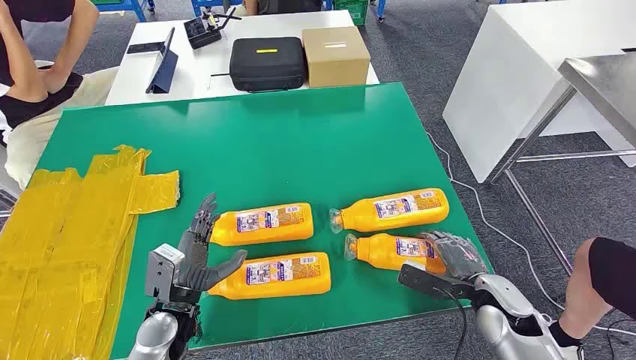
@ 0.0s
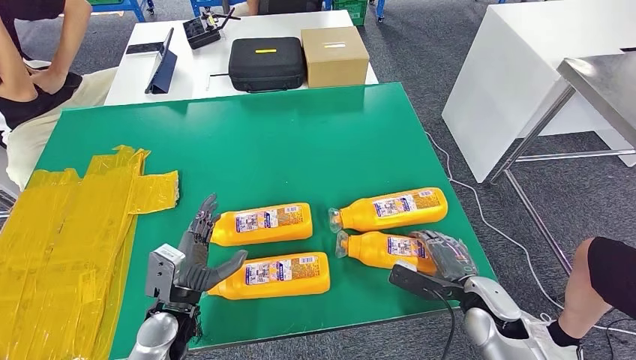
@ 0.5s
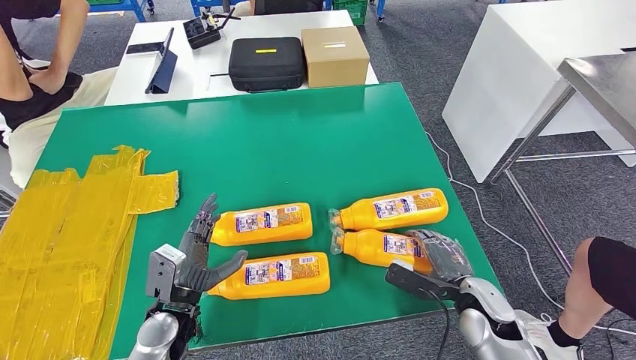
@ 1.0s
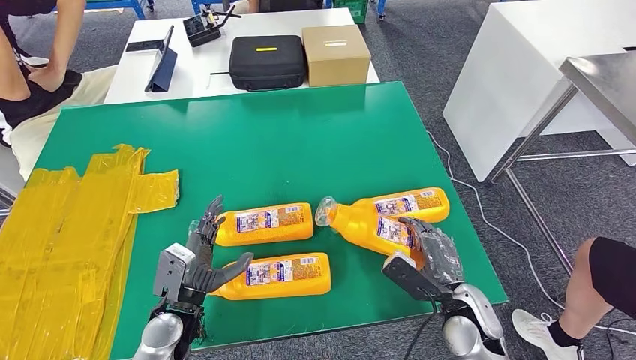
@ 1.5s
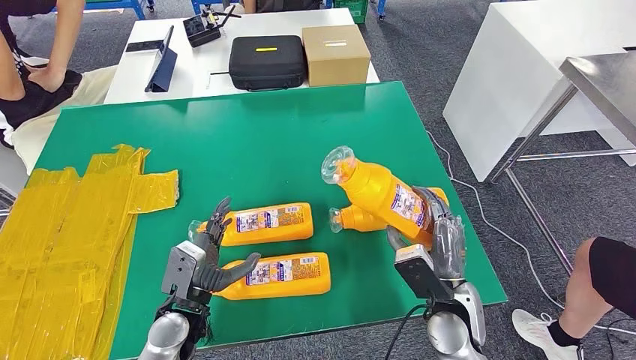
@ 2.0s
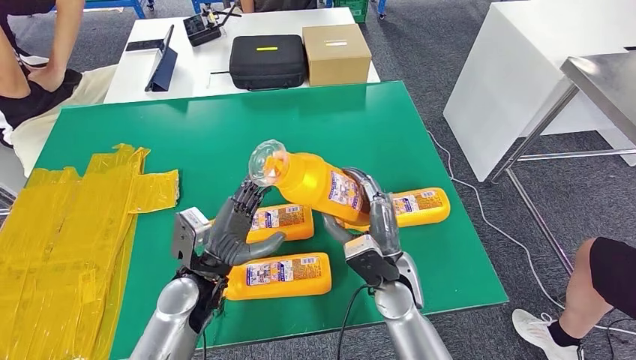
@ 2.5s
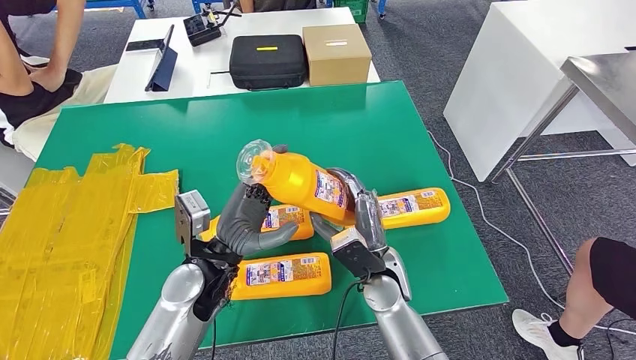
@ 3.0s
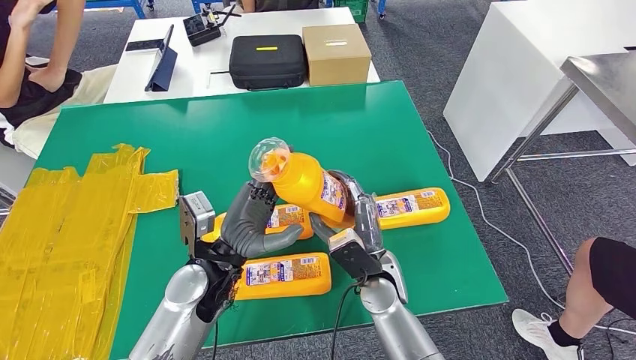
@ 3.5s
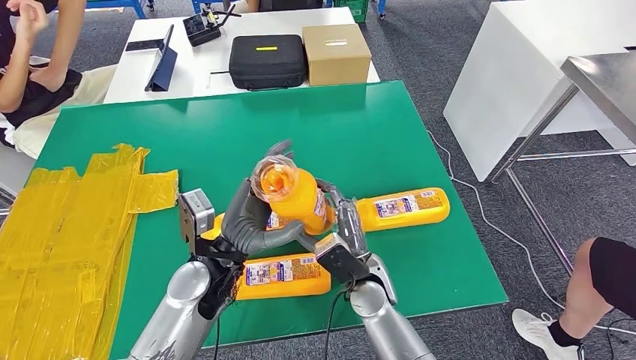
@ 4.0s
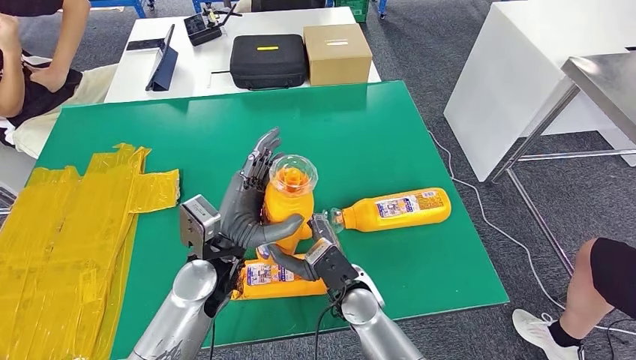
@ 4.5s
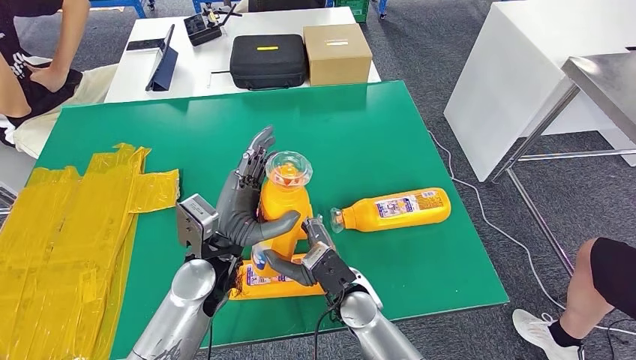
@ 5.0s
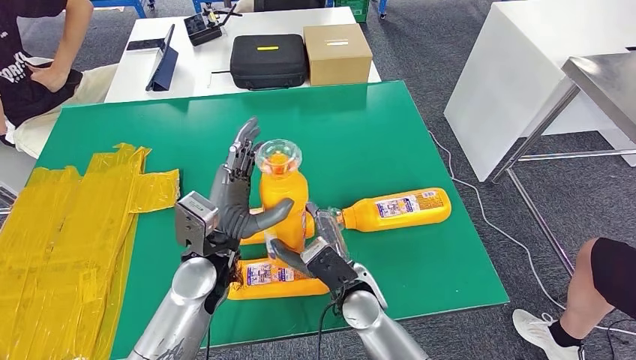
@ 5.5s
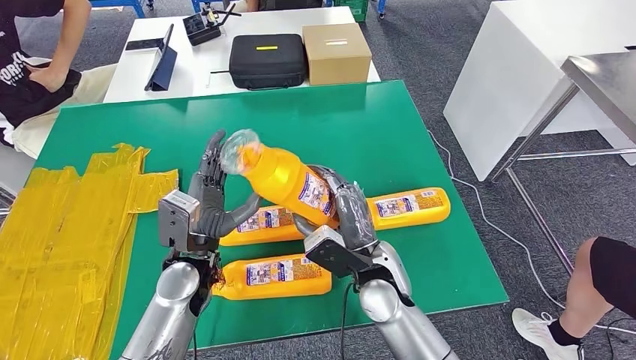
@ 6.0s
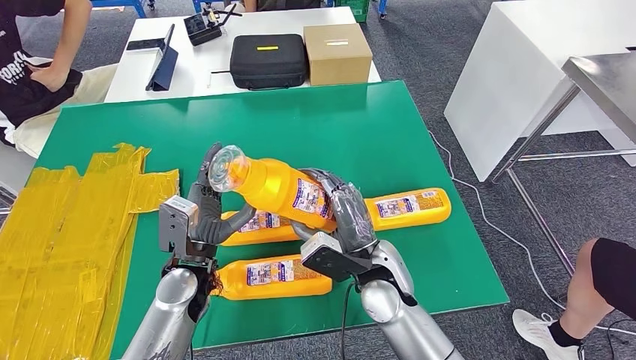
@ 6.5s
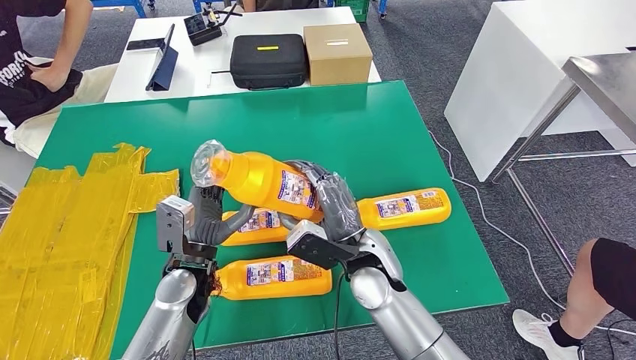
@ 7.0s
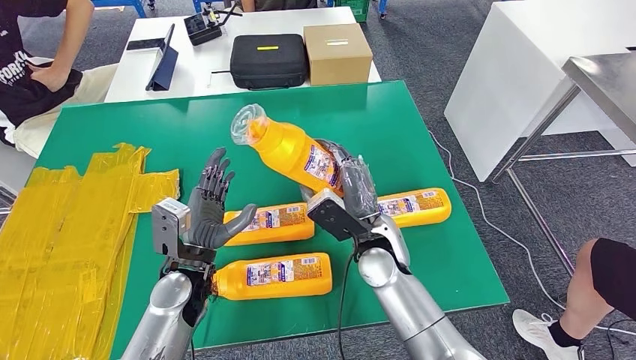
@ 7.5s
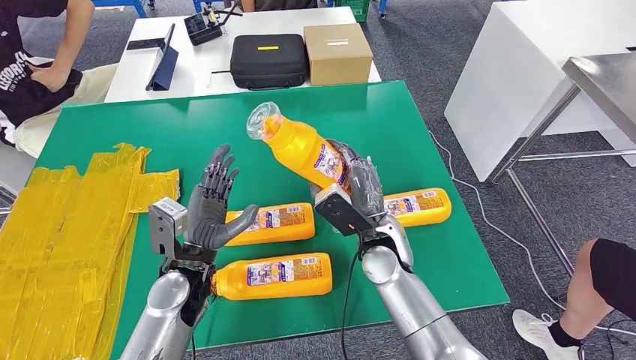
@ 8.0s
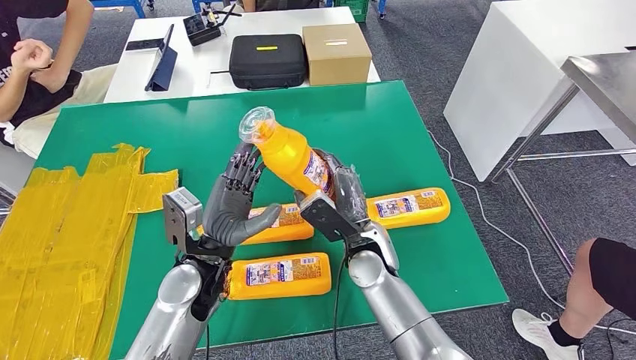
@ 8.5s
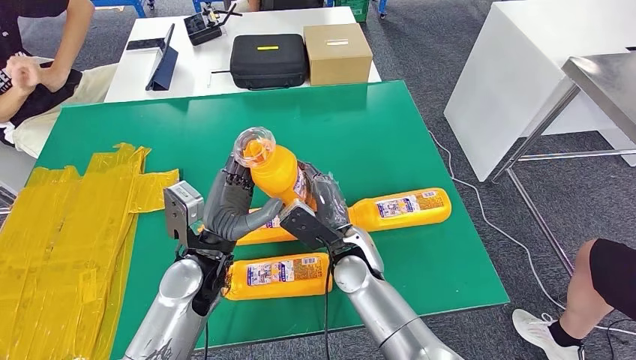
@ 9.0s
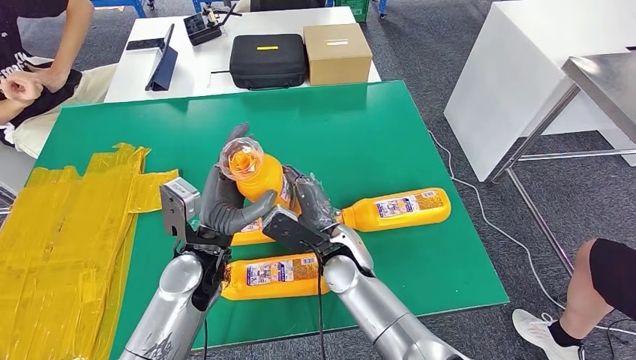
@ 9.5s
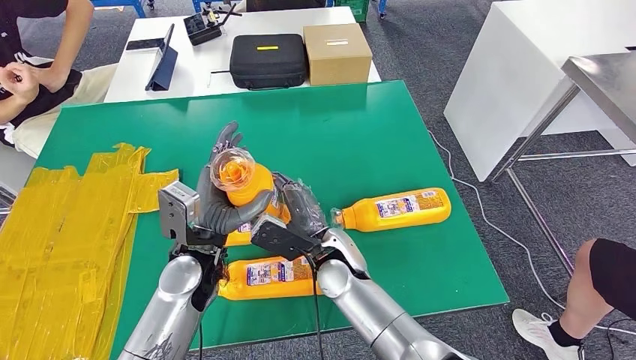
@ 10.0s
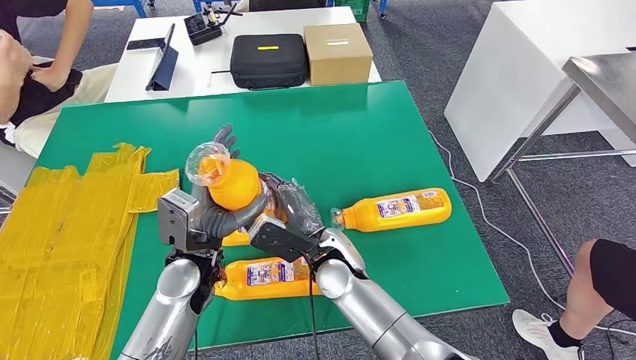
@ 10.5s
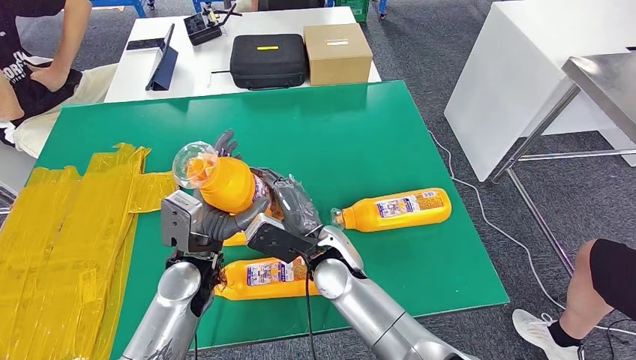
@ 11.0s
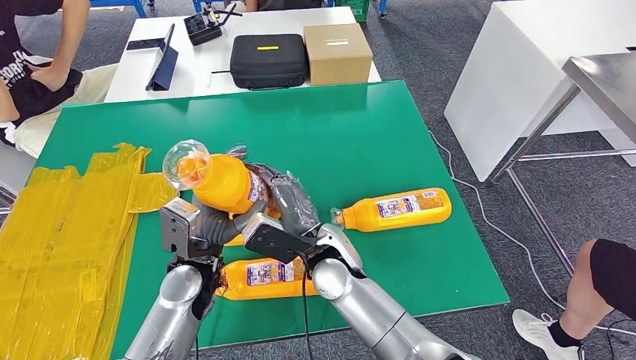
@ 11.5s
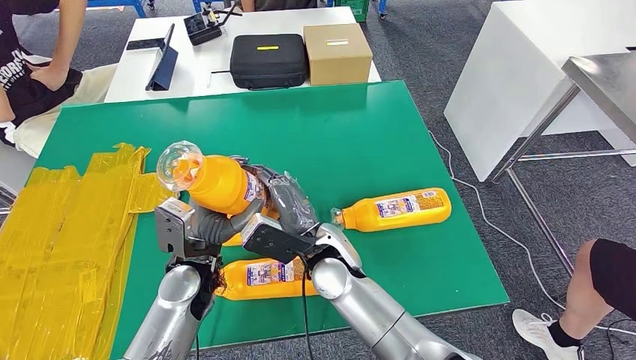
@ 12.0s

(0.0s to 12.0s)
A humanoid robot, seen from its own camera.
Step, 0.0s - 4.5s: Take the fast-moving consumer goods bottle from the table.
2.0s - 4.0s: The left hand goes about 15 cm upward and to the right. The right hand moves to the left and forward, approximately 15 cm.
4.0s - 6.0s: The right hand moves upward, approximately 5 cm.
6.0s - 8.0s: The right hand travels forward by roughly 5 cm.
8.0s - 10.0s: The right hand travels to the left by approximately 10 cm.
10.0s - 12.0s: The hands move only a little.

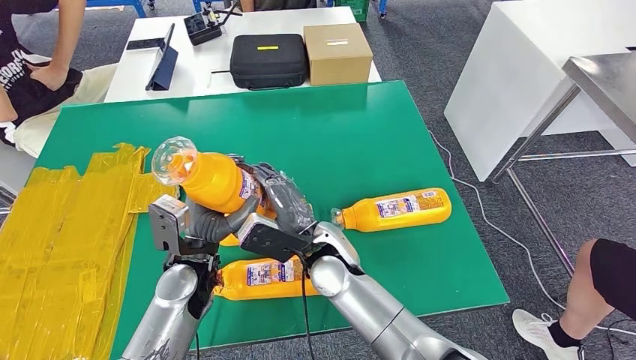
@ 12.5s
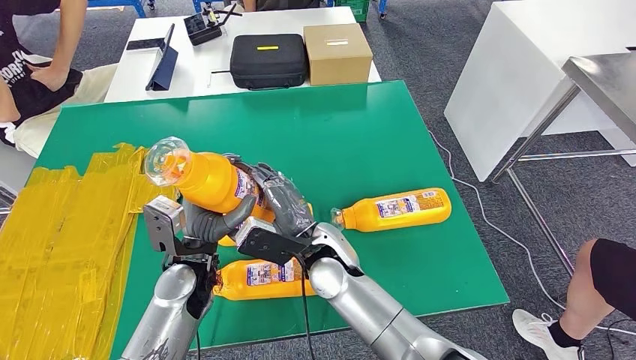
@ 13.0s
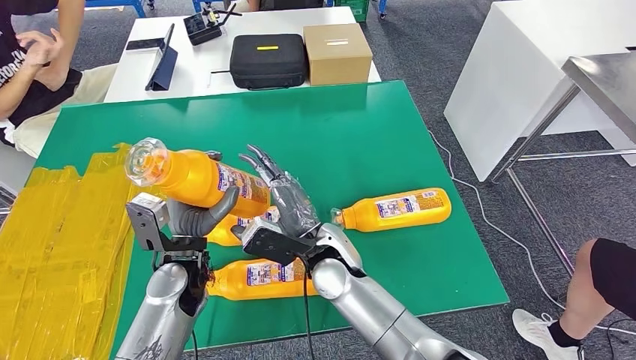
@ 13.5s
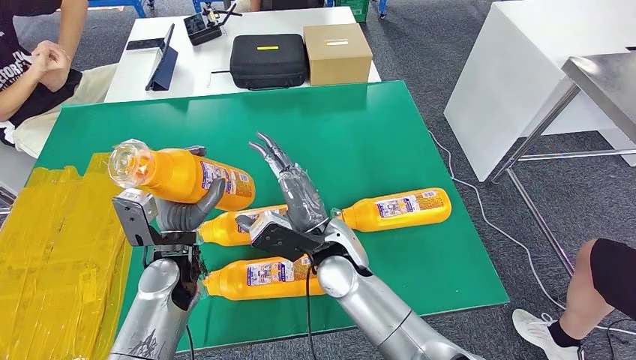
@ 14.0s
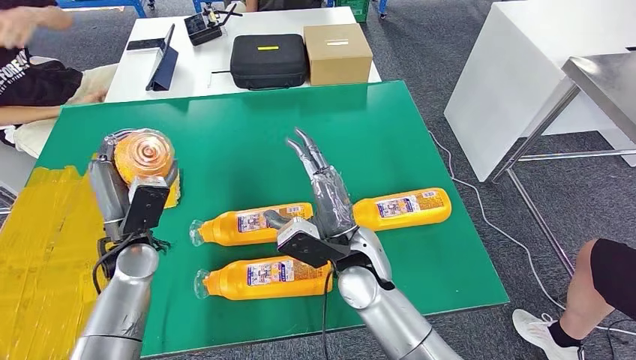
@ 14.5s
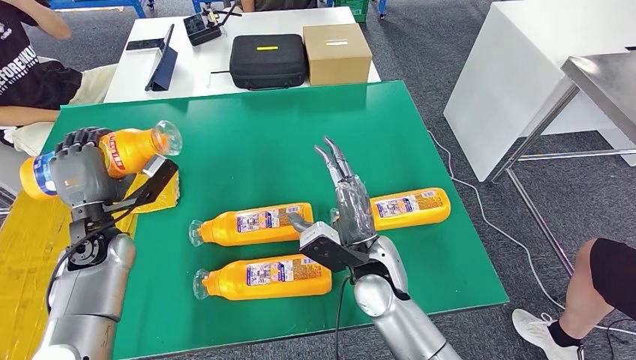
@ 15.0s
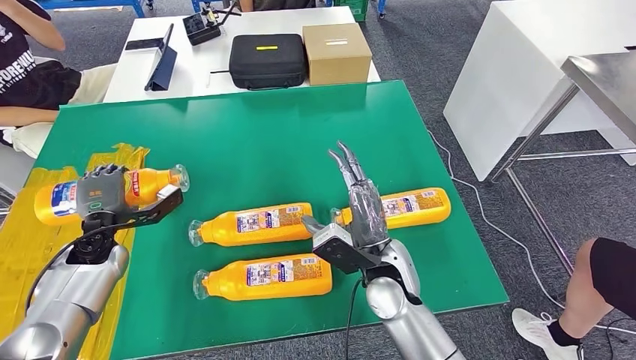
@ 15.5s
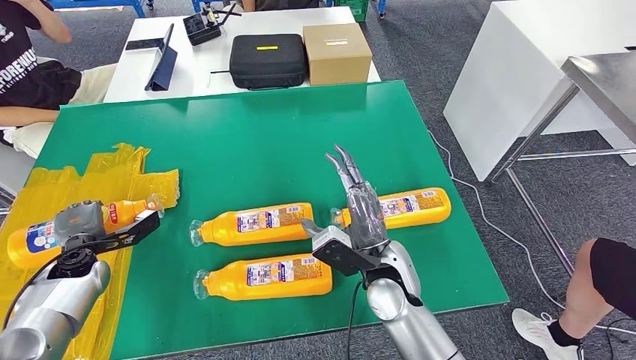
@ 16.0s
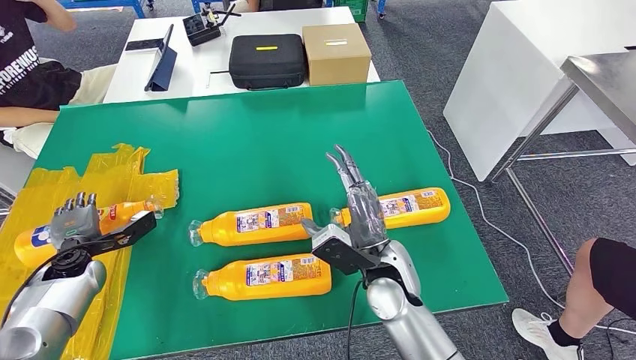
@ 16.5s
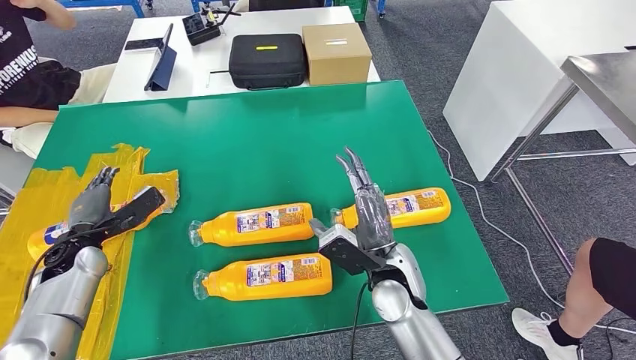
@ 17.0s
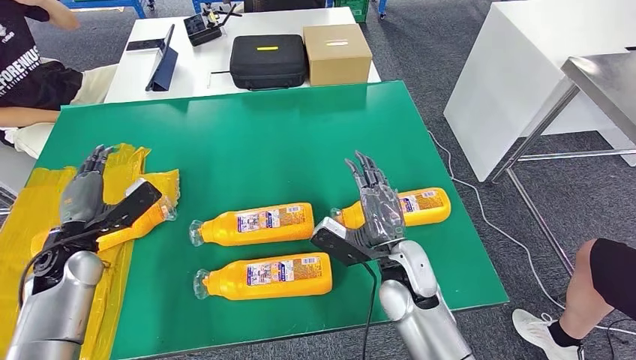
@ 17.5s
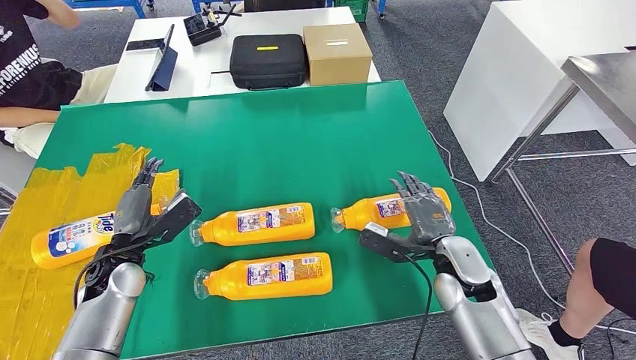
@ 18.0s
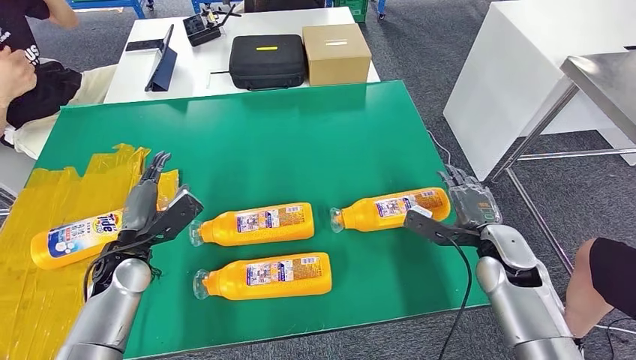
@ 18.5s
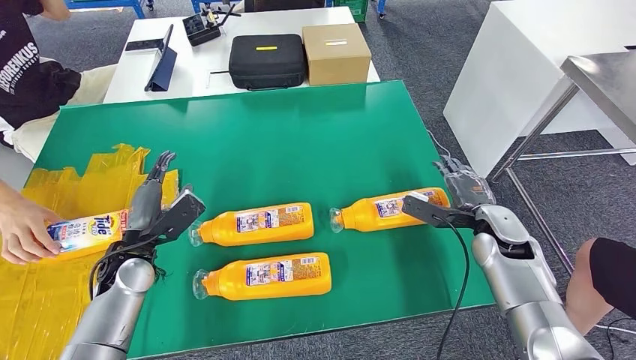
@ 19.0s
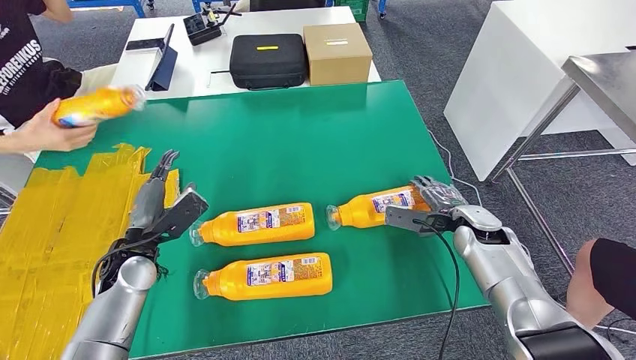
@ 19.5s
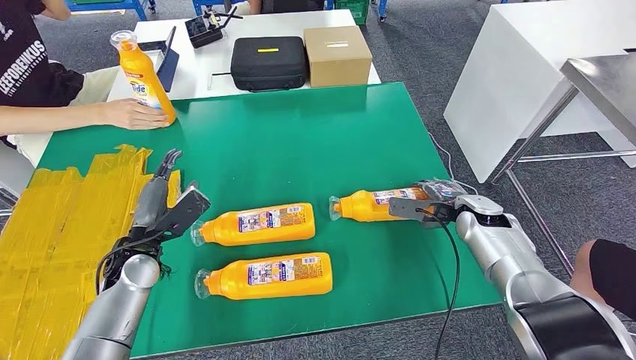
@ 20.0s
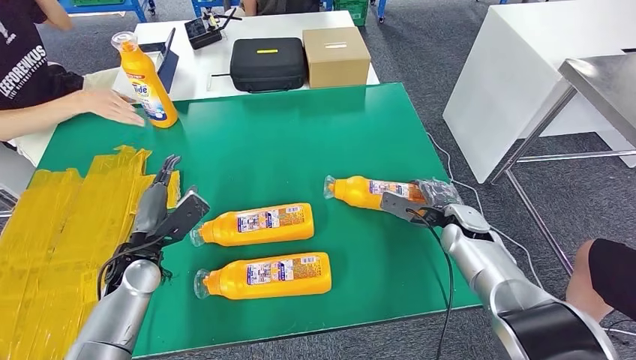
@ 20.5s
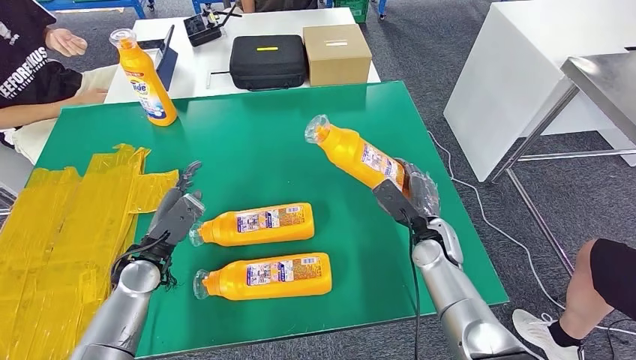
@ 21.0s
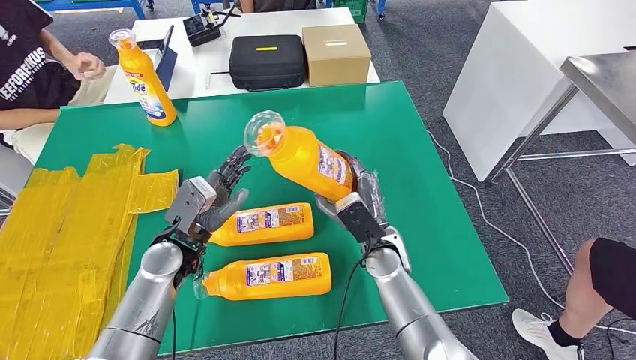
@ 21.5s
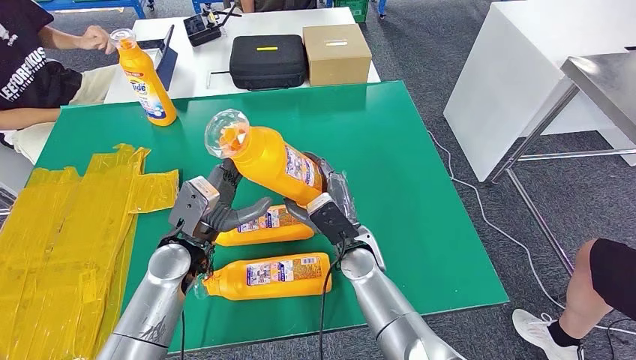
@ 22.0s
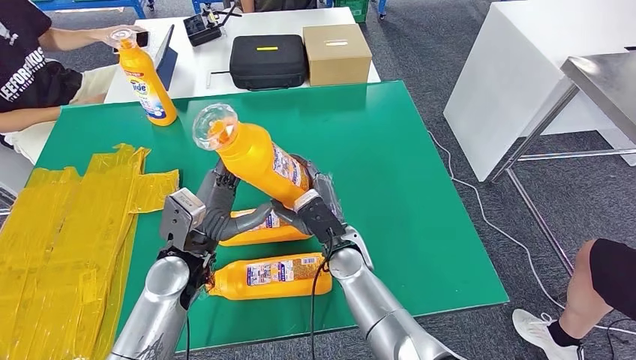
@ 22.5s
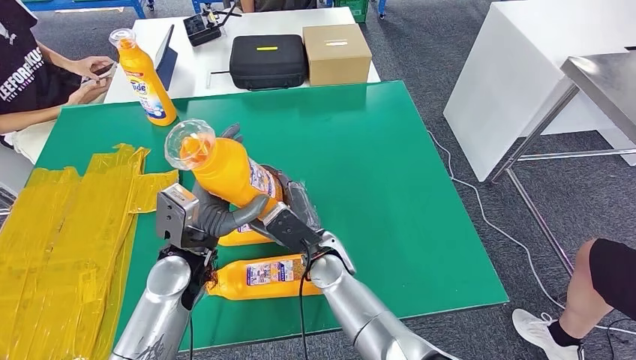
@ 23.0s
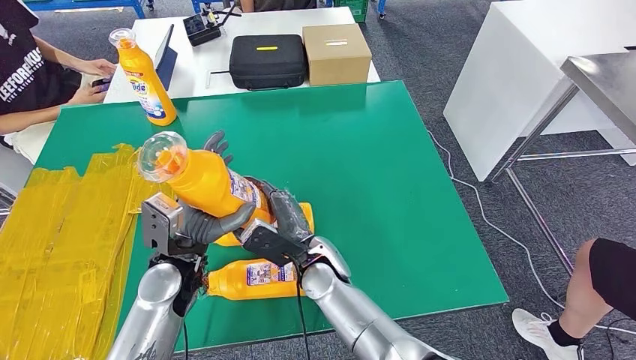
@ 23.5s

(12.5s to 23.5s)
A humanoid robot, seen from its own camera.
Step, 12.5s - 17.0s: Flip the fast-moving consumer goods bottle to the front side.
12.5s - 14.5s: The left hand moves to the left, some 10 cm; the right hand shifts by approximately 5 cm.
14.5s - 16.0s: The left hand heads to the left and downward, covering some 15 cm. Meanwhile the right hand changes place by approximately 5 cm.
16.0s - 18.0s: The hands both shift to the right by approximately 10 cm.
21.5s - 23.5s: The right hand goes roughly 15 cm to the left.
